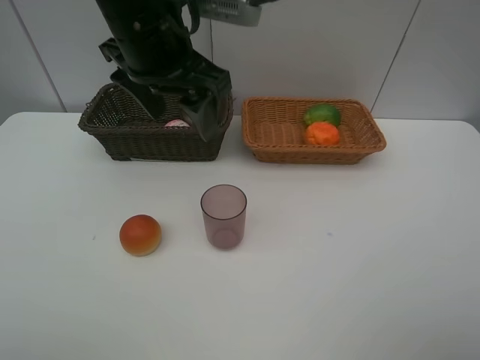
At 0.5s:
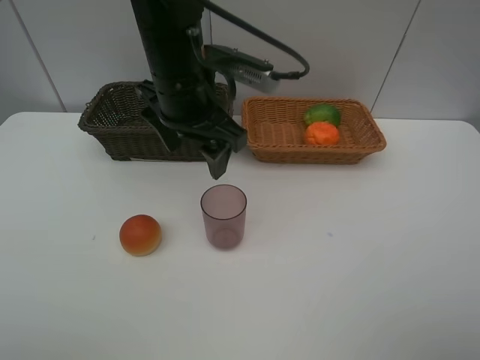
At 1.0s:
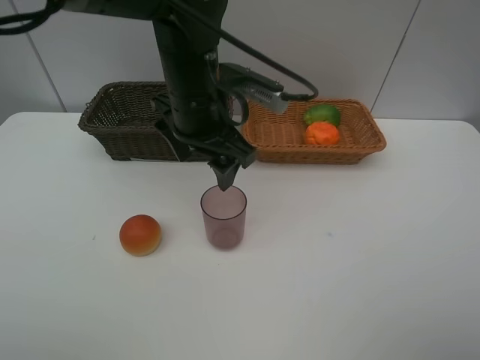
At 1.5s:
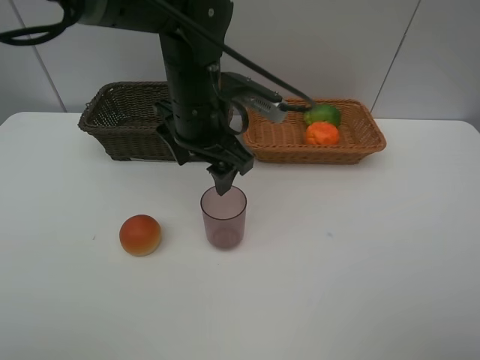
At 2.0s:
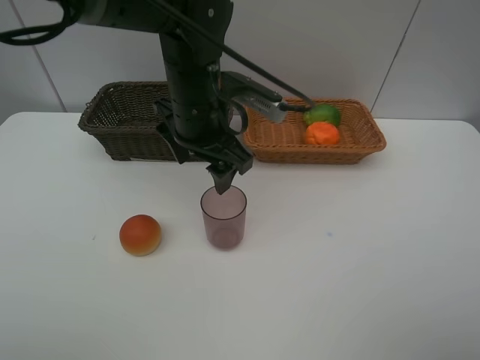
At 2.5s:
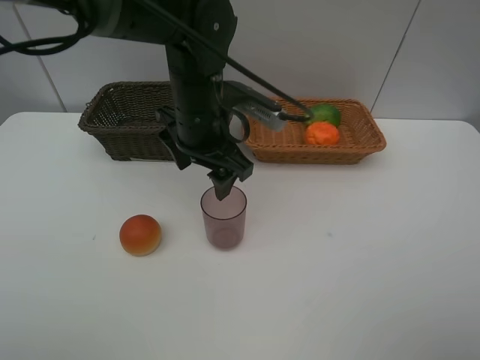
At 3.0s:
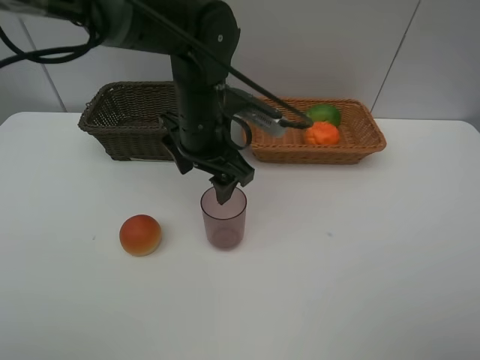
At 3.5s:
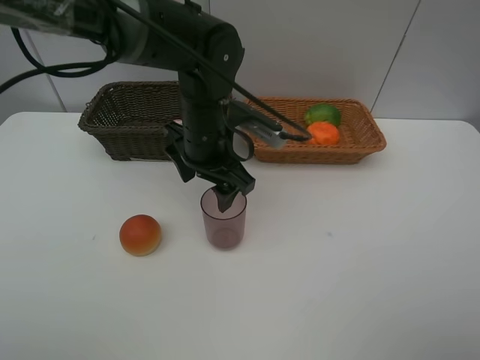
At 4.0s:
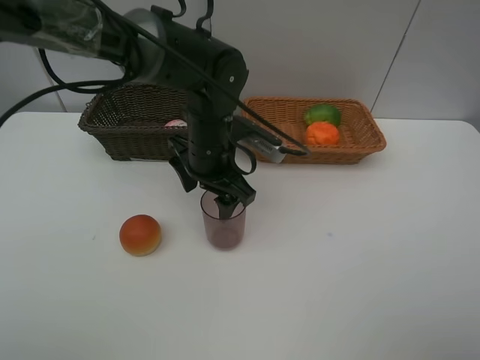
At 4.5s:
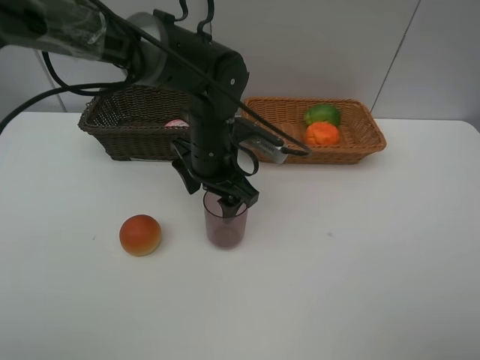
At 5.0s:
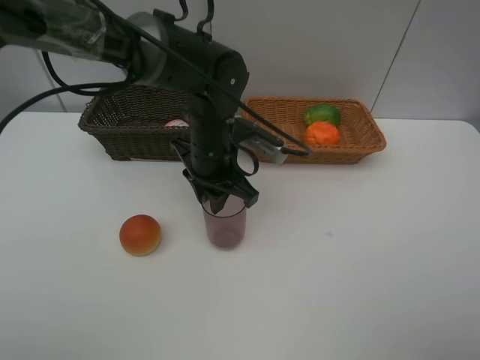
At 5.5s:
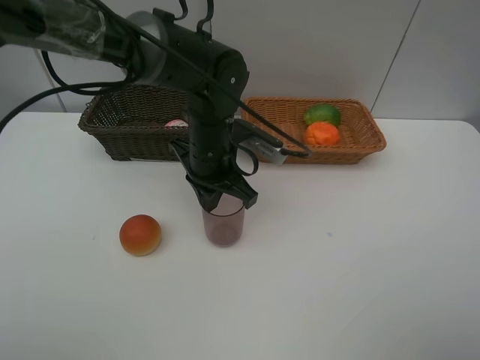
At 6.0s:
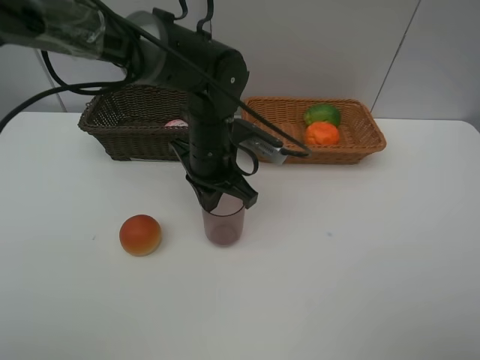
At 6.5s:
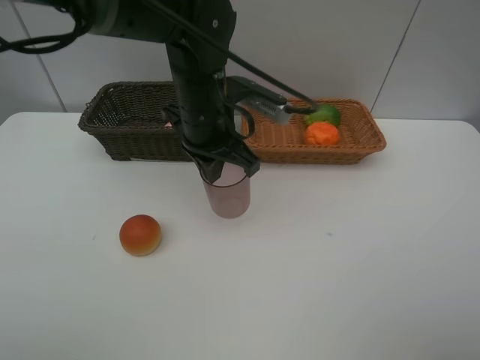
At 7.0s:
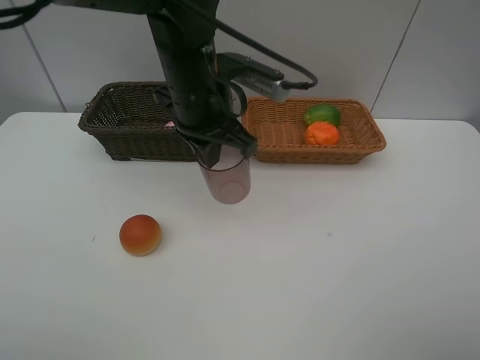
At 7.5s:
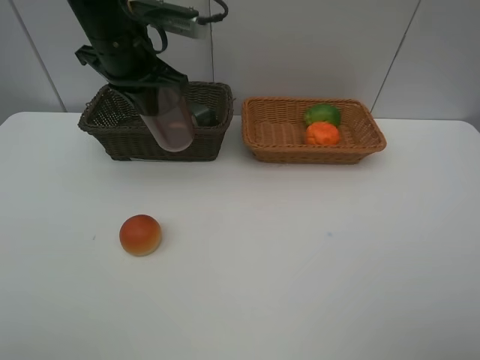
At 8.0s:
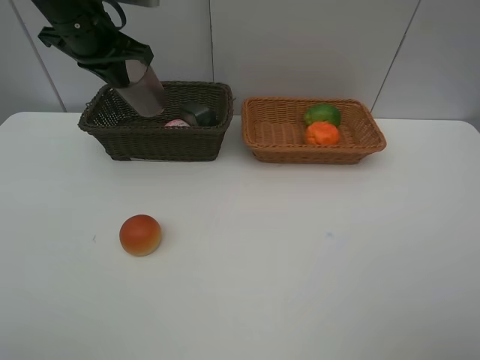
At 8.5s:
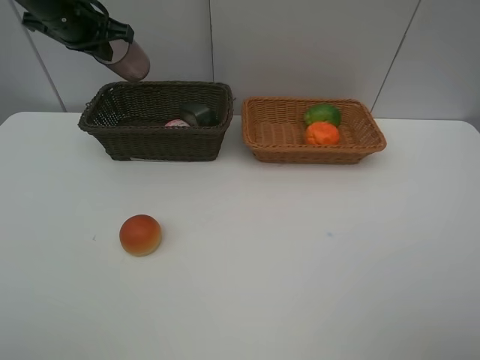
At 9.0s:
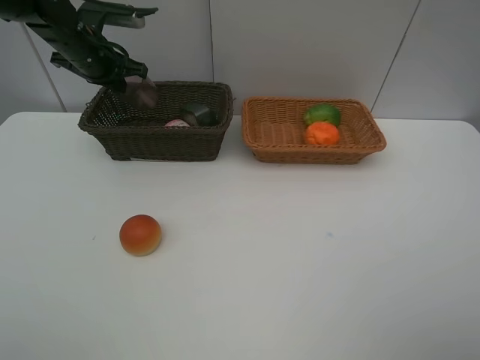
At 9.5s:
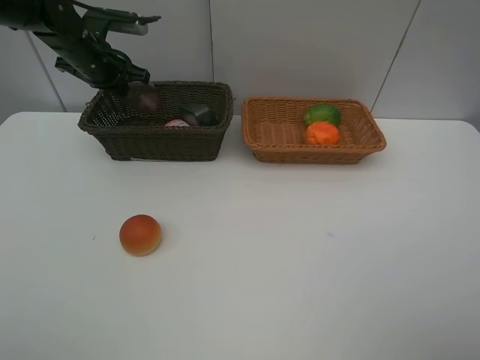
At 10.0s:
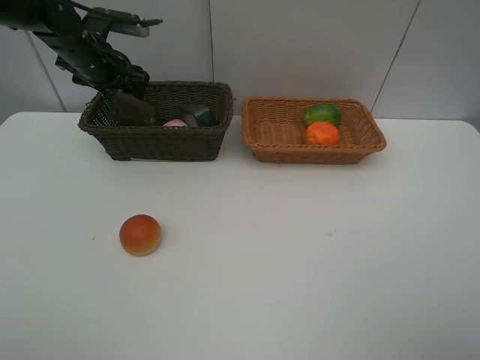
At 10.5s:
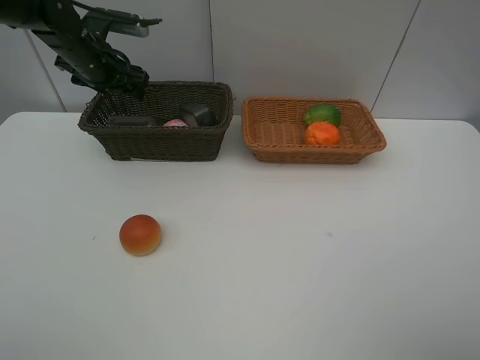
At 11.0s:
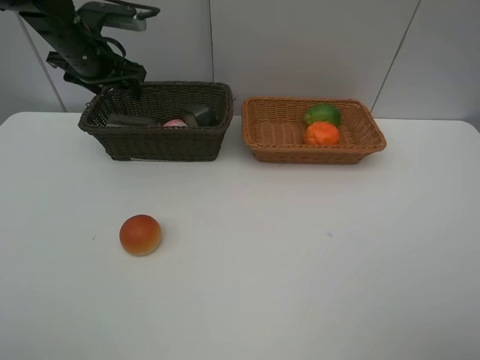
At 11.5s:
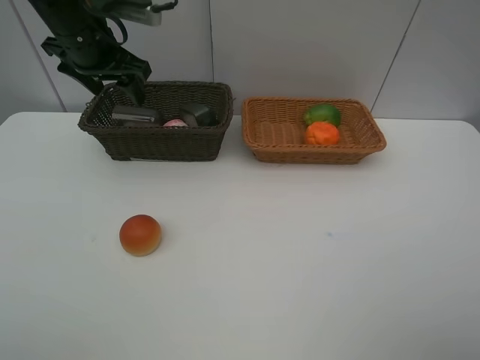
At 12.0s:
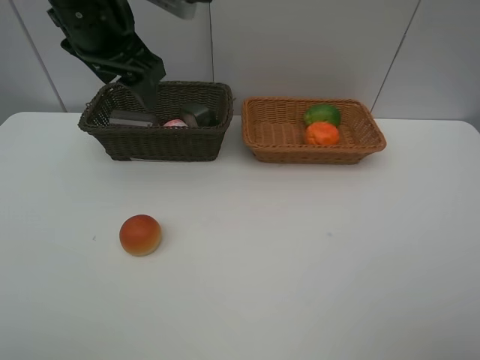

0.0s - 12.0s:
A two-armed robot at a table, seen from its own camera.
Task of the whole recording: place multiple objects separately in different baskets.
0.0s - 2.0s: The left gripper goes approximately 10 cm downward.
2.0s - 4.0s: The left gripper heads downward, covering roughly 5 cm.
4.0s - 6.0s: The left gripper closes.
6.0s - 8.0s: The left gripper moves to the left, upward and forward, roughly 25 cm.
8.0s - 10.0s: The left gripper goes approximately 10 cm downward and forward, and opens up.
10.0s - 12.0s: The left gripper travels backward, upward and to the right by some 20 cm.

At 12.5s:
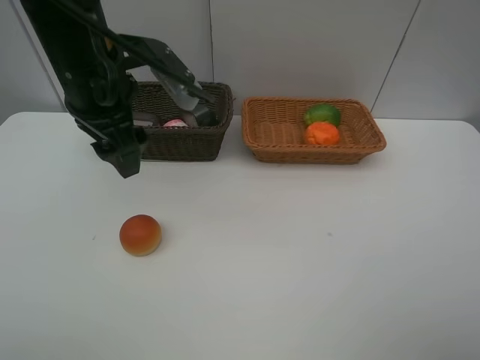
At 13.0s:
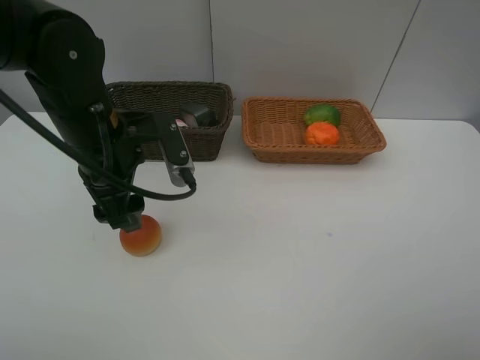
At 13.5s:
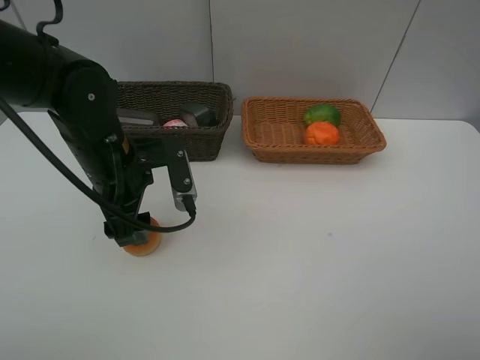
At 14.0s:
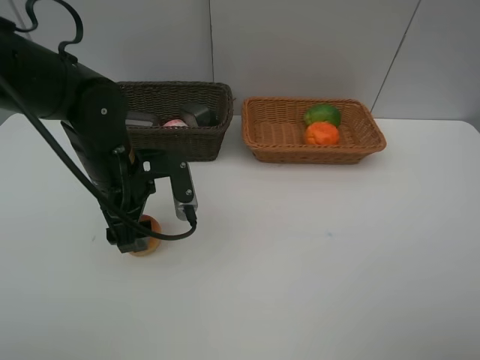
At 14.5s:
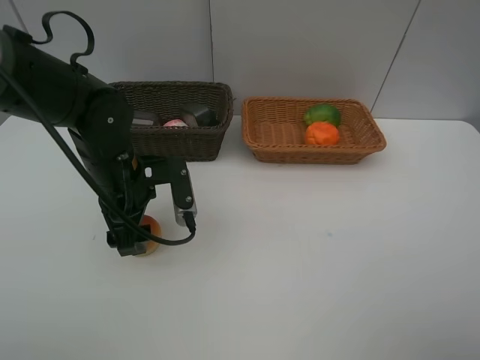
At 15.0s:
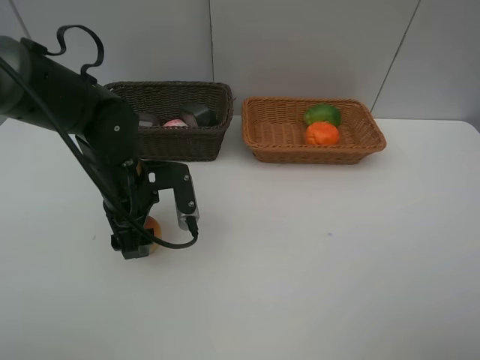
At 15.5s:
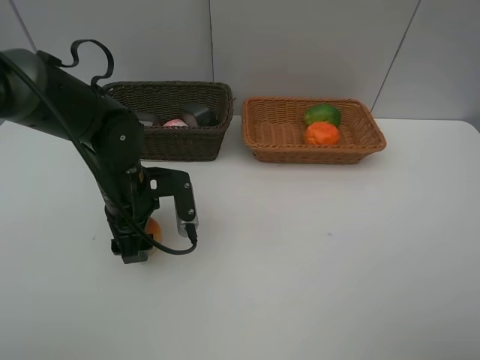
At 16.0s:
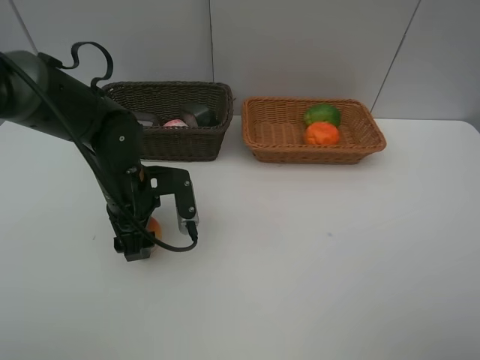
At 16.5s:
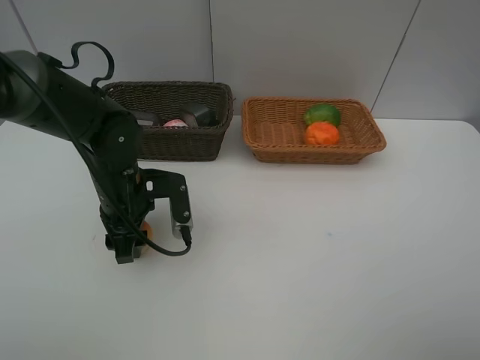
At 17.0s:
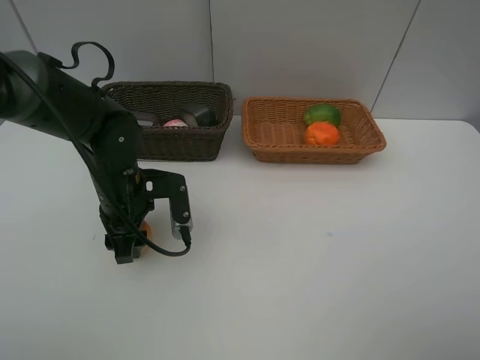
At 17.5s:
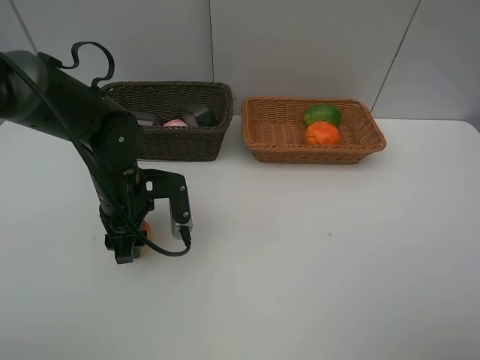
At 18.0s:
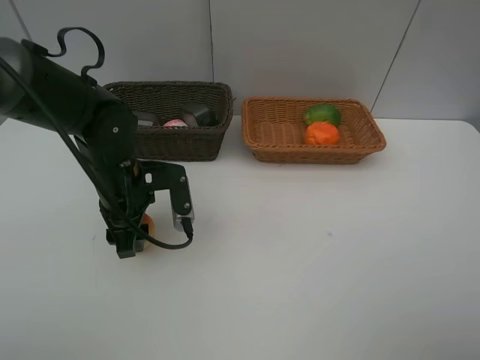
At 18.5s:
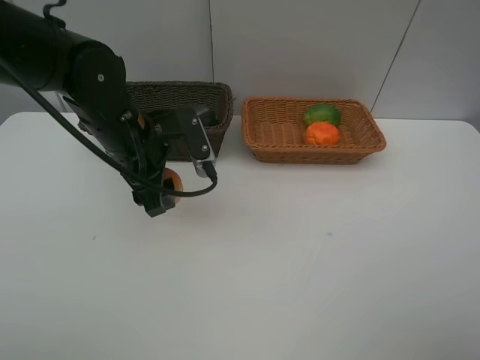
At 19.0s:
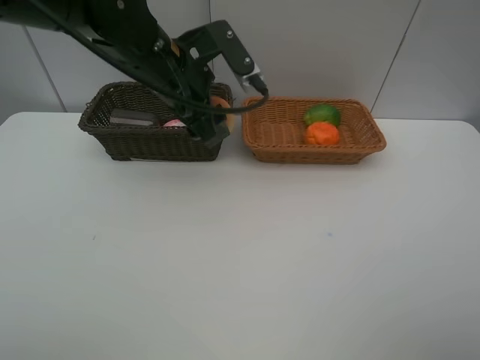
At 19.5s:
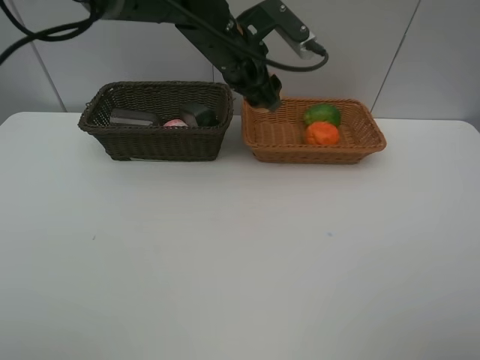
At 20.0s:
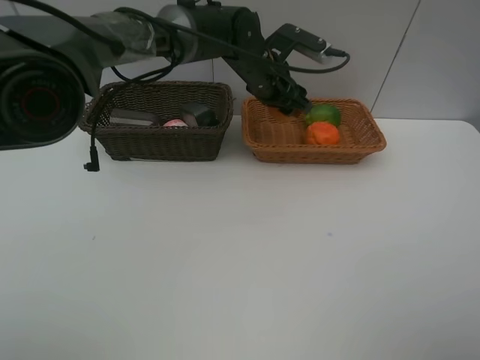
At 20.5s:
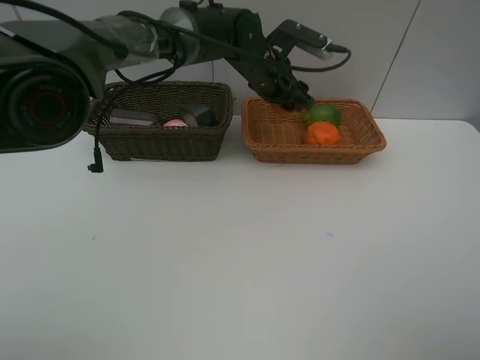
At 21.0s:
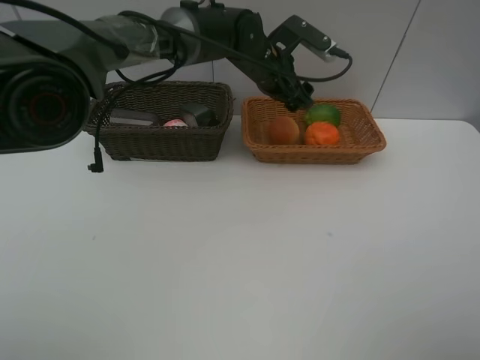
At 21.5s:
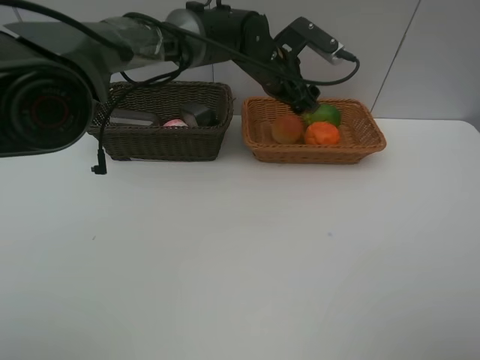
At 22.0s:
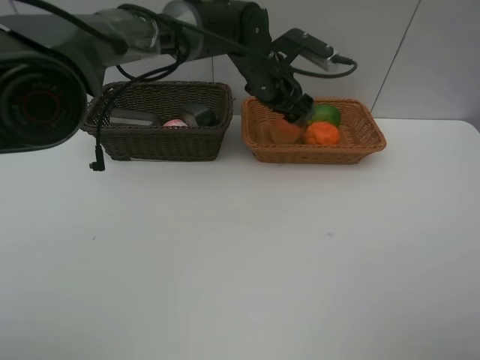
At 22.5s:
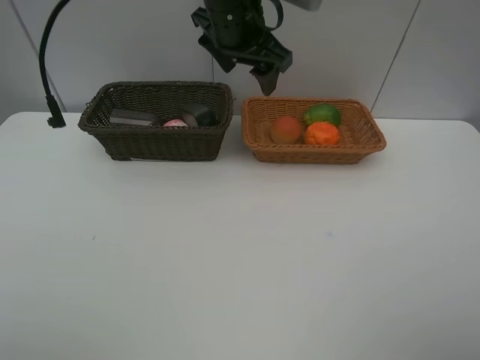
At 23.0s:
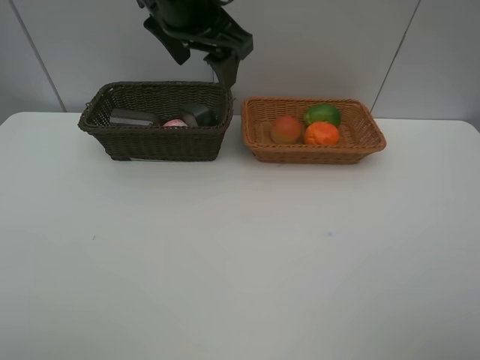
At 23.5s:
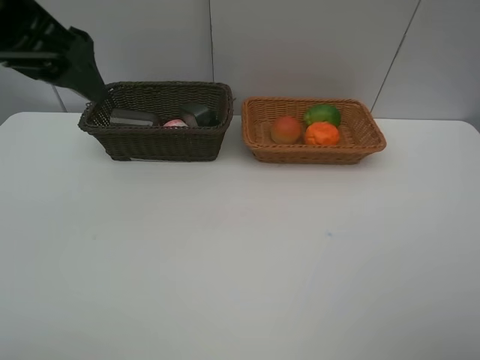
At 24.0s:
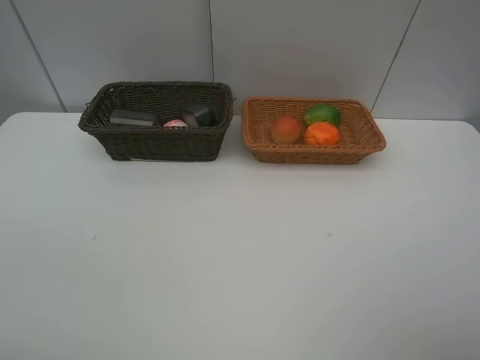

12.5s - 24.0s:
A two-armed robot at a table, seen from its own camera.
Task of the whole recording: place multiple objects separately in different baskets.
12.5s - 14.5s: The left gripper is displaced downward by some 15 cm.
14.5s - 16.5s: The grippers move only a little.
16.5s - 18.5s: The left gripper is displaced upward by about 5 cm.
18.5s - 20.0s: The left gripper shifts some 20 cm to the right and forward.
20.0s - 22.0s: The grippers make only small movements.
22.0s - 24.0s: The left gripper is displaced to the left, backward and upward by roughly 50 cm.

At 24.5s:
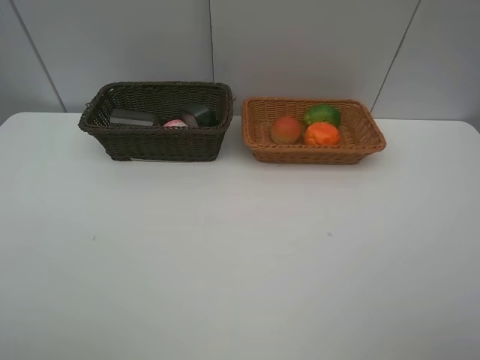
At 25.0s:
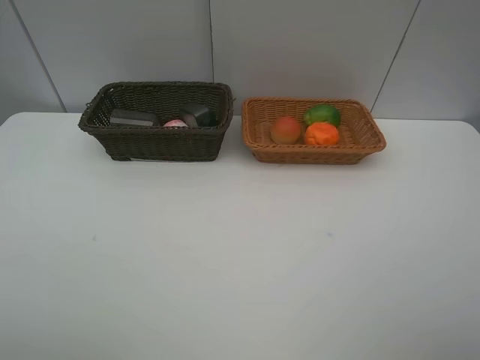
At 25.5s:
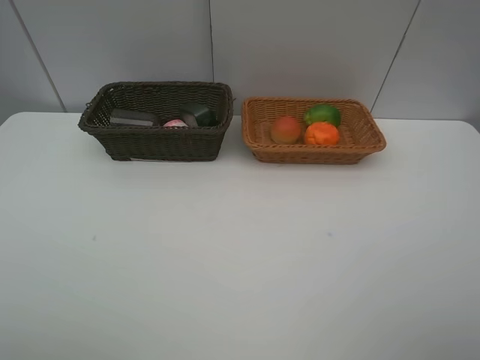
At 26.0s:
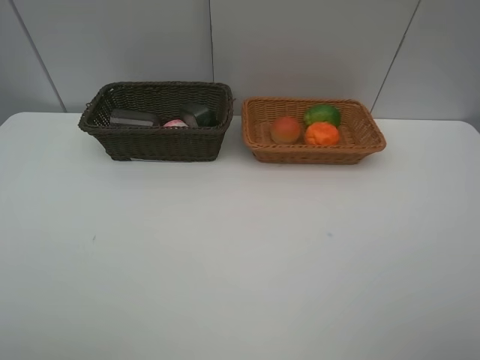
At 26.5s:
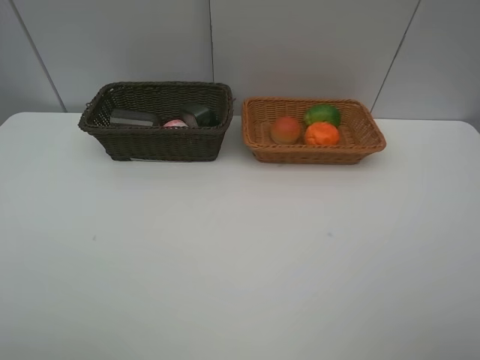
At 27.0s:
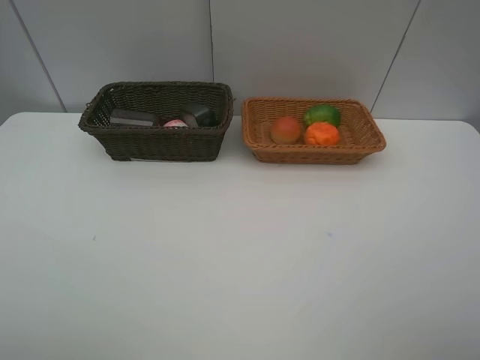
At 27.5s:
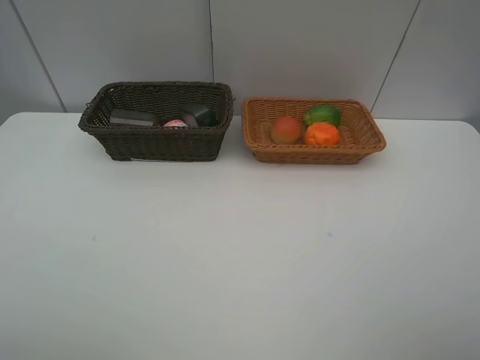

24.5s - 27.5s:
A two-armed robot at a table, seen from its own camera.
Task of the whole recording: place multiple objects separately in different baskets.
26.0s - 27.5s: The two grippers keep their place.
